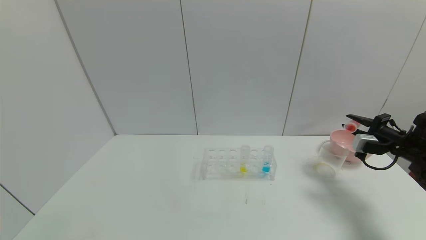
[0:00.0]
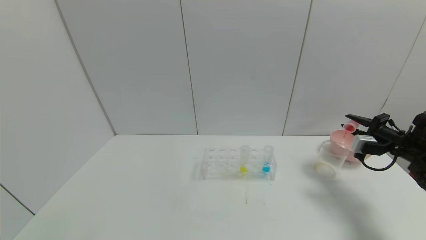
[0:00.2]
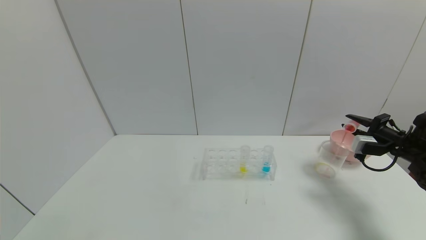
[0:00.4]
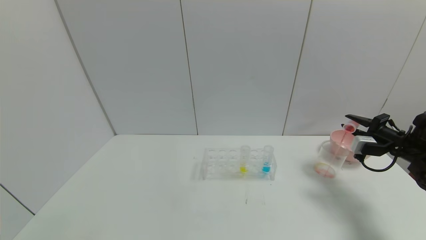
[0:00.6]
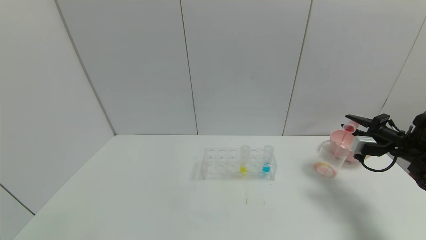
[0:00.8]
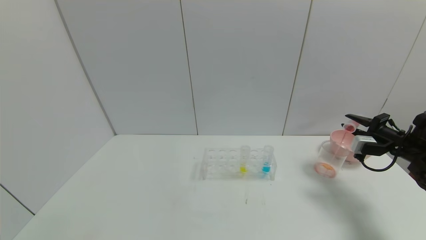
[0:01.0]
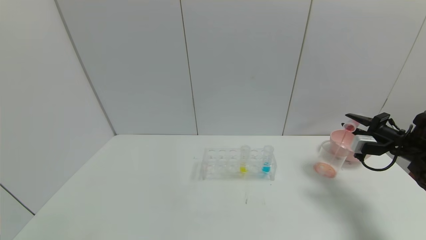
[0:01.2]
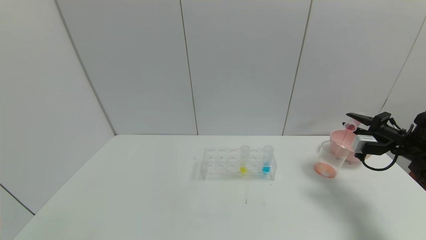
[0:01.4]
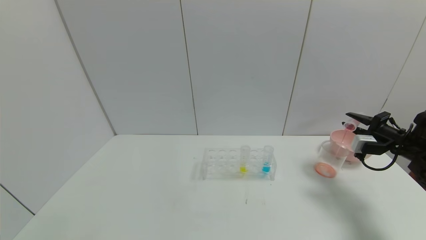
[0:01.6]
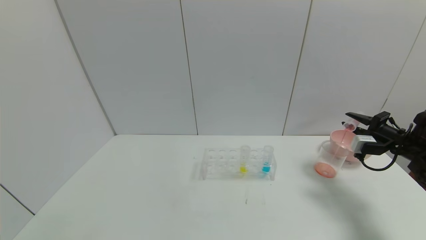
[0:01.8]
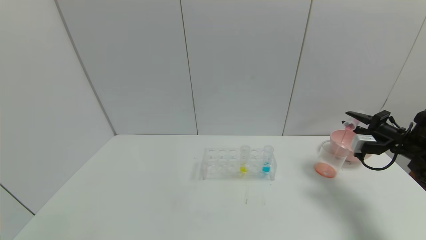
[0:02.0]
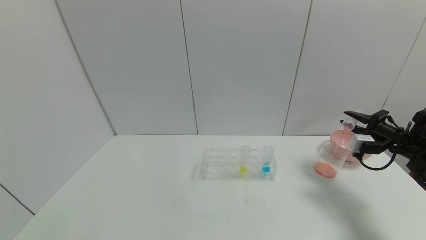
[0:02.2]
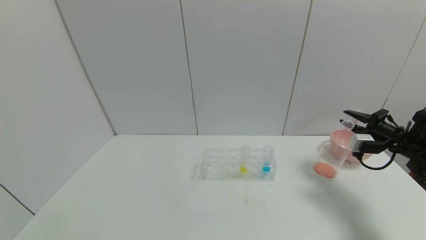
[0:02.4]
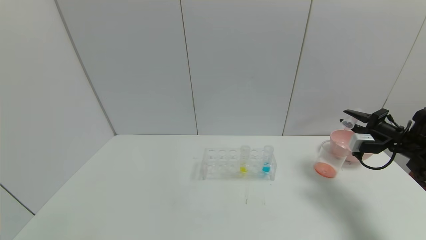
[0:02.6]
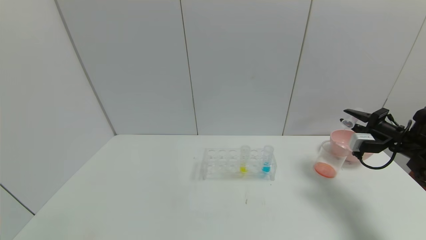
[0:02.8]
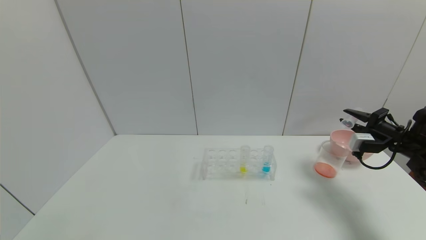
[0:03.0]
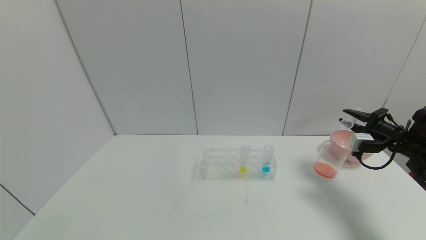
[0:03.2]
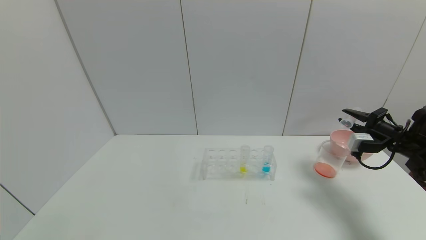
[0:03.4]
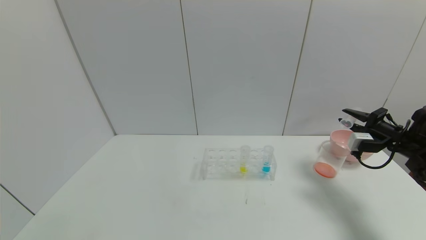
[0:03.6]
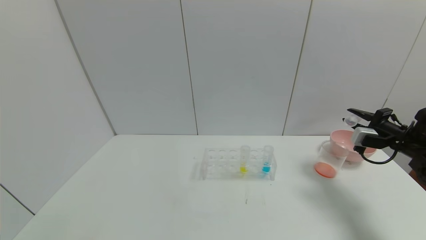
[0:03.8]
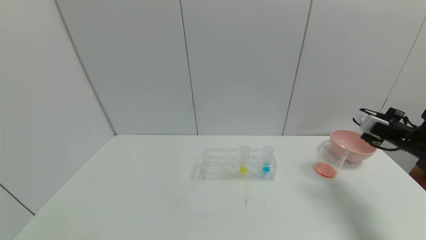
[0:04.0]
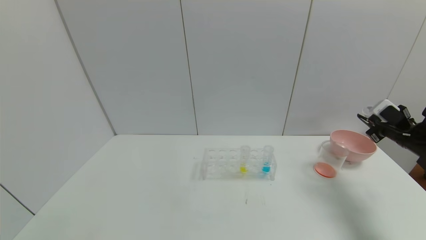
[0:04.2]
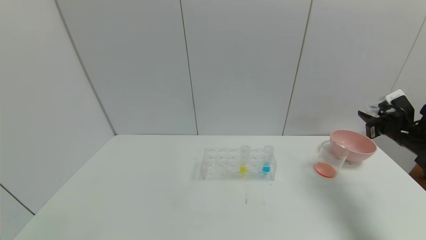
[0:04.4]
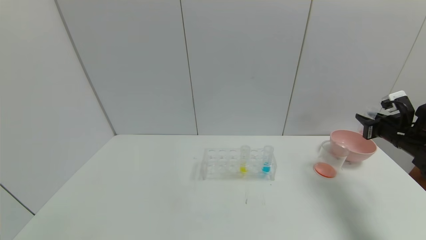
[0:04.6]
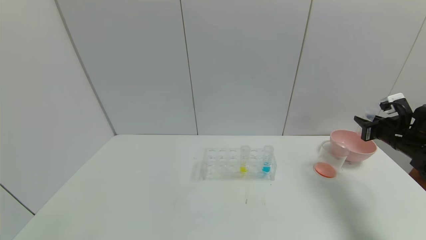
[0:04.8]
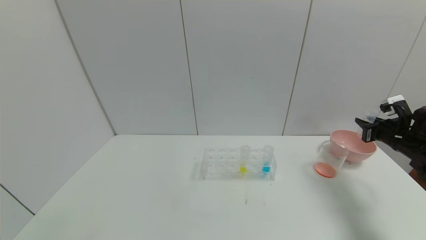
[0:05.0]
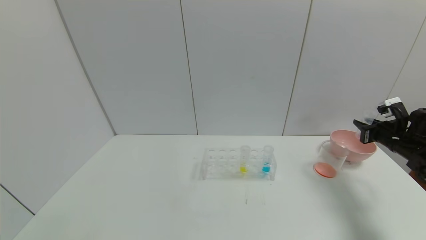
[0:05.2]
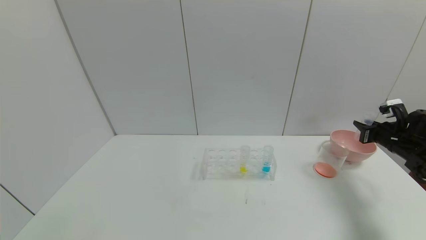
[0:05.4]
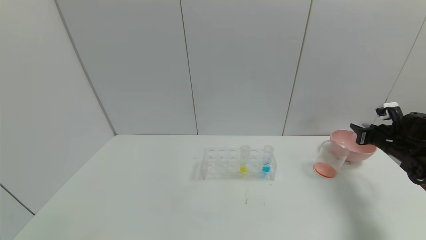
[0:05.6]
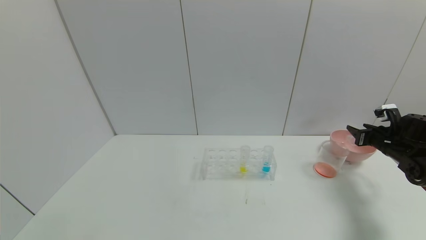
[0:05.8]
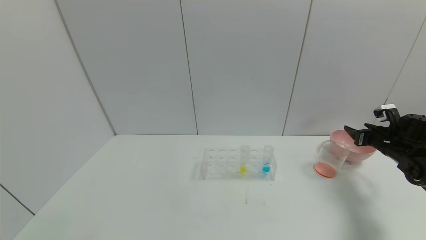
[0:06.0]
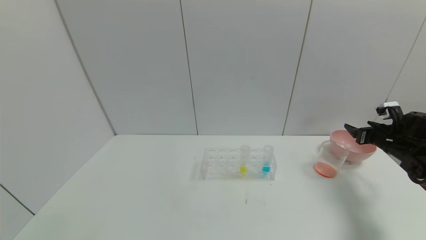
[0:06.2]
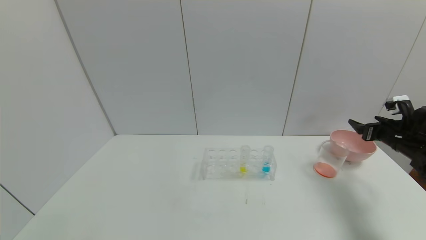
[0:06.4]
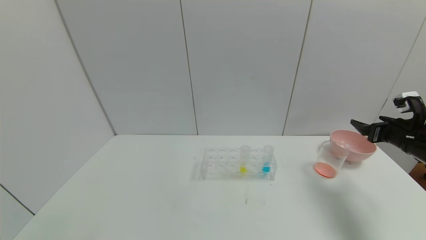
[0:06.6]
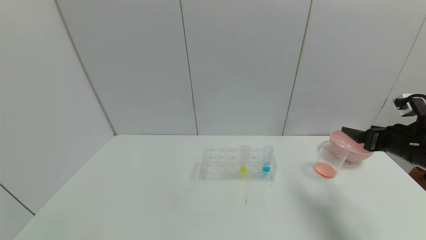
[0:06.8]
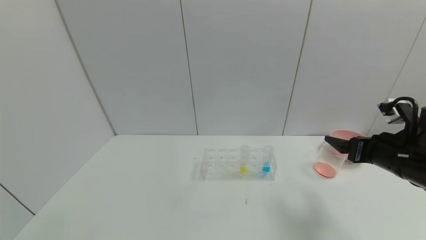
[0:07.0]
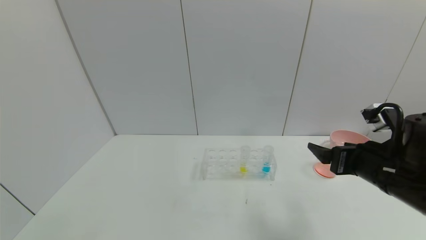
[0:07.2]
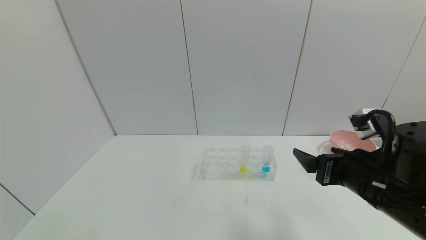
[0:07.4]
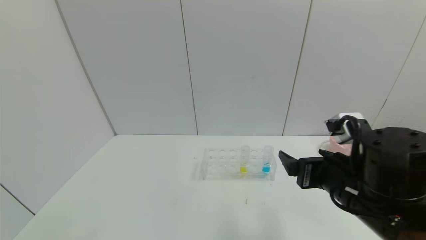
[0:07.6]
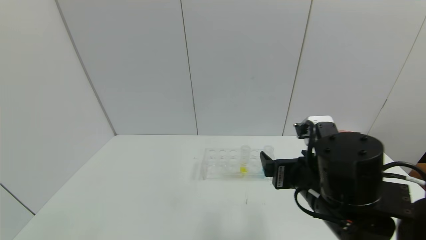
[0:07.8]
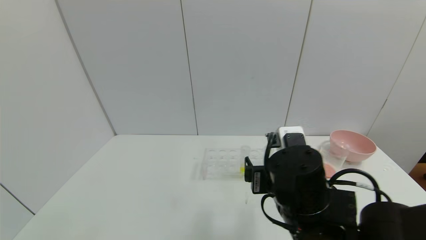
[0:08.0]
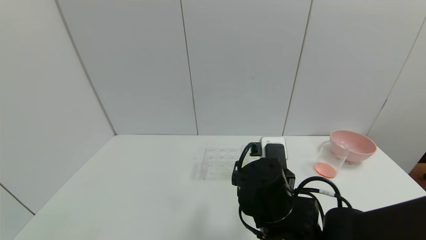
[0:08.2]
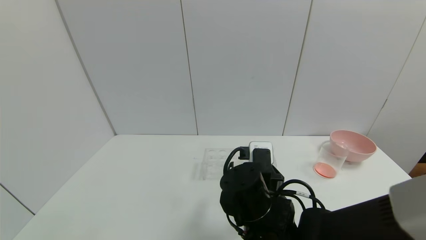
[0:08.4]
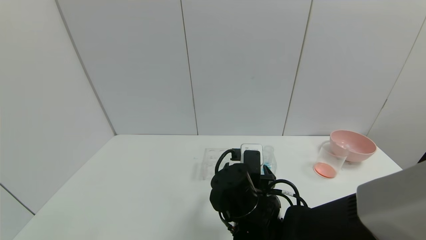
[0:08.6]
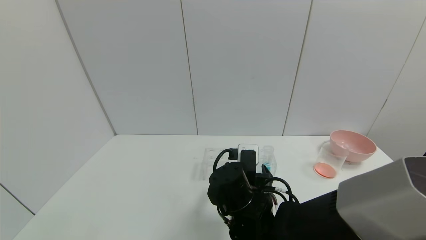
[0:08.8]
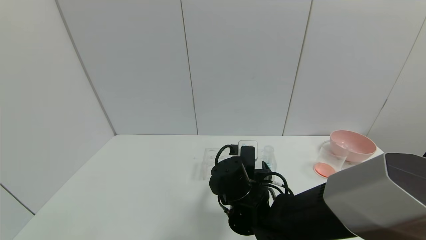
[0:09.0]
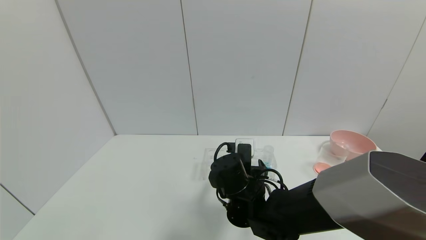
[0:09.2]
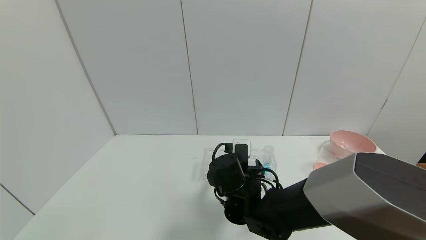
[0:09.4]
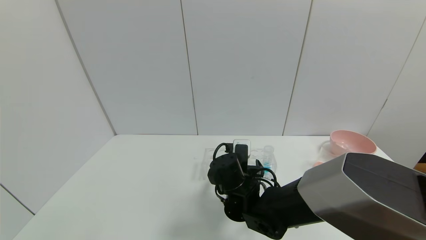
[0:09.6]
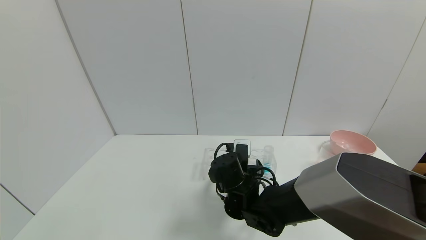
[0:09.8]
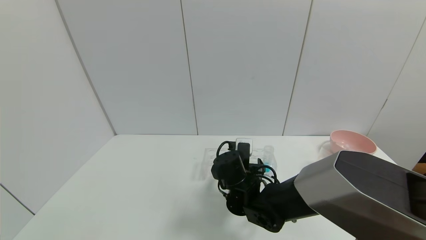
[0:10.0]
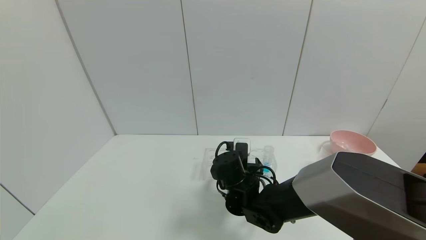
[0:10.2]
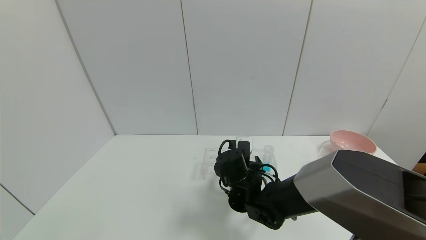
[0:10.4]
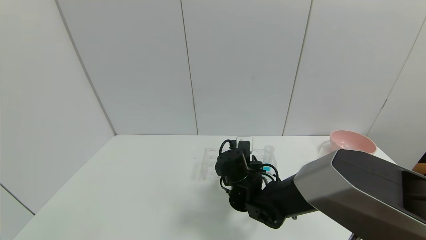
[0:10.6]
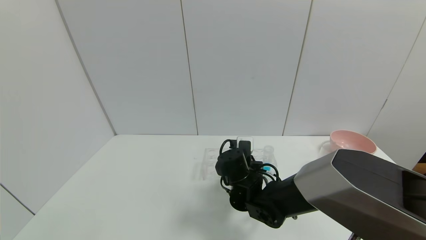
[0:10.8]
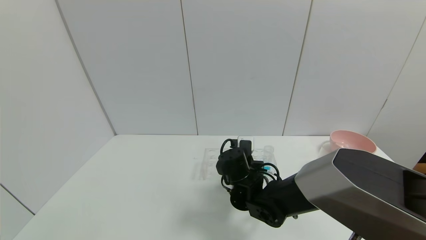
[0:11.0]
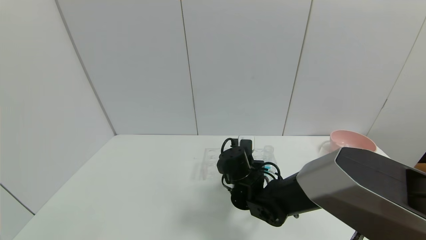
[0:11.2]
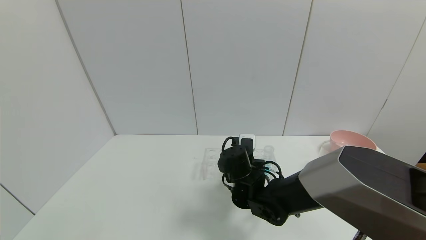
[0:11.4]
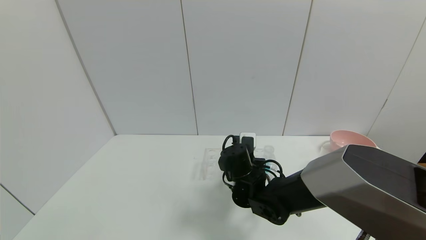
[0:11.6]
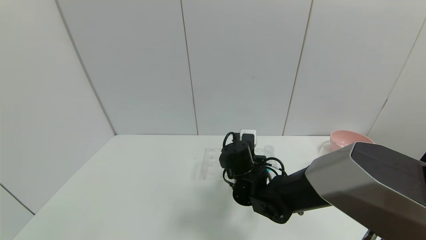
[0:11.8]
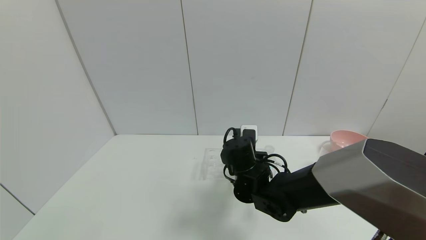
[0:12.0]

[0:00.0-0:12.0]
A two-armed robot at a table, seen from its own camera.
Task of the whole recording: pick up the test tube with yellow pigment and the test tube with red pigment by grippers and pour them into the beaker.
Step, 0:03.2 to 0:06.4: Place the test tube into the bowl with the right gripper.
Step, 0:06.6 to 0:11.0: Grasp the yellow reagent with the right gripper.
0:00.0 to 0:01.6: Both grippers stay about where they are.
0:01.6 to 0:03.0: The grippers stay close to where they were, moving slightly.
0:04.4 to 0:06.0: The right gripper goes roughly 5 cm downward, and opens.
0:06.0 to 0:07.6: The right gripper travels to the left and backward by about 35 cm, and opens.
0:07.6 to 0:09.0: The right gripper travels to the left, downward and forward by approximately 20 cm.
0:09.0 to 0:10.4: The right gripper moves forward, roughly 5 cm.
0:10.4 to 0:12.0: The right gripper closes its fingers.

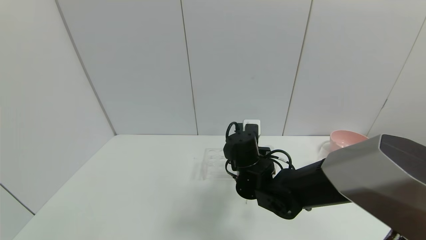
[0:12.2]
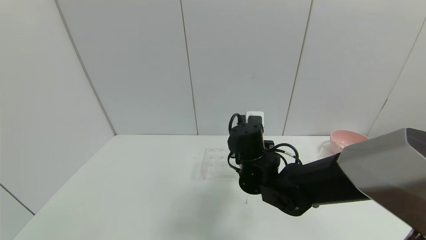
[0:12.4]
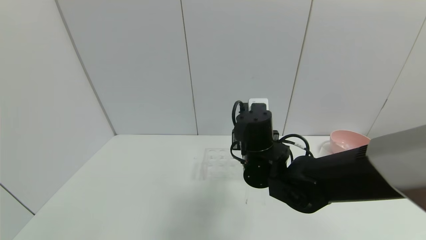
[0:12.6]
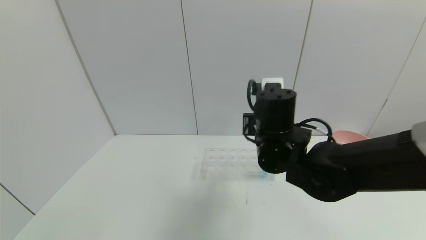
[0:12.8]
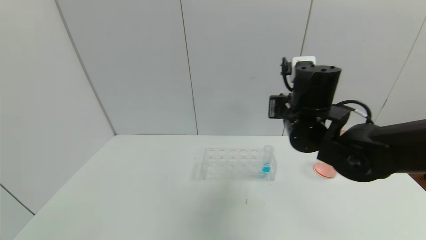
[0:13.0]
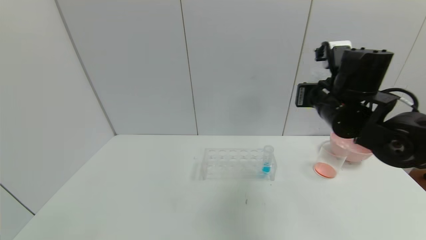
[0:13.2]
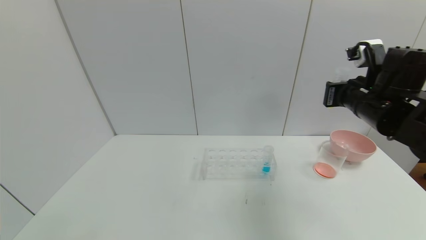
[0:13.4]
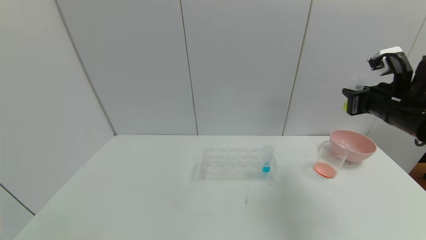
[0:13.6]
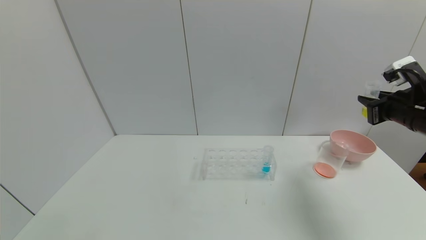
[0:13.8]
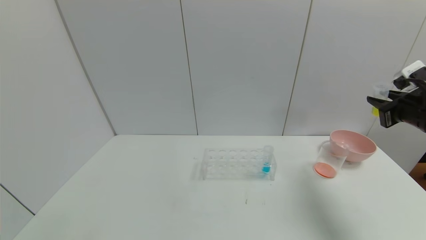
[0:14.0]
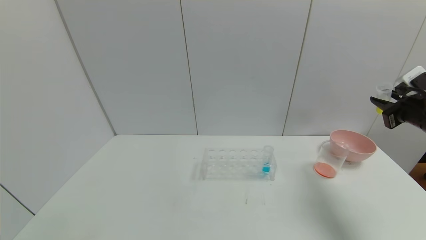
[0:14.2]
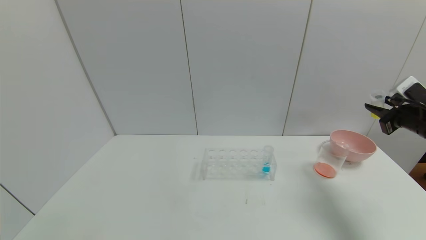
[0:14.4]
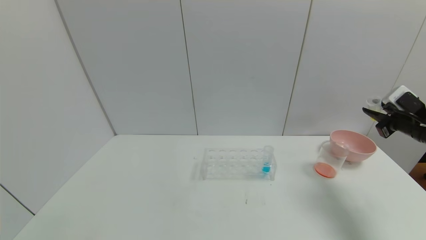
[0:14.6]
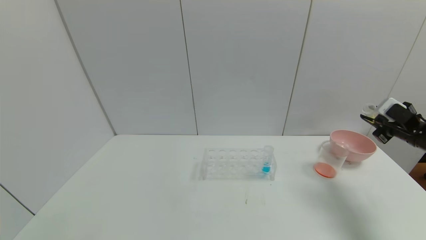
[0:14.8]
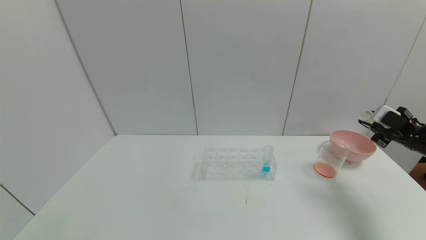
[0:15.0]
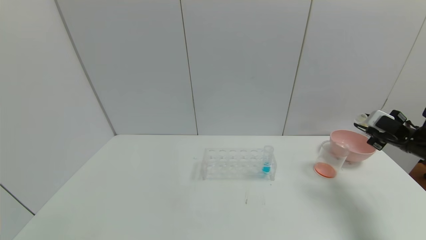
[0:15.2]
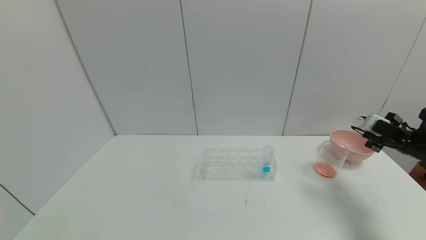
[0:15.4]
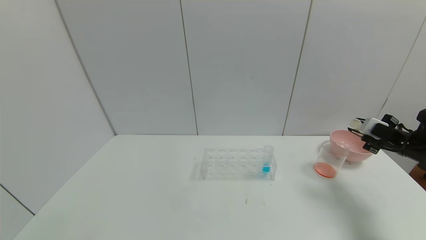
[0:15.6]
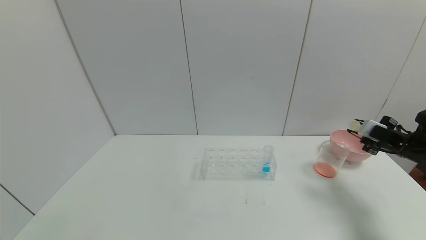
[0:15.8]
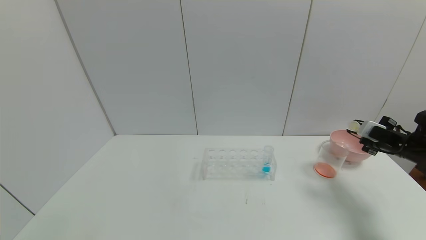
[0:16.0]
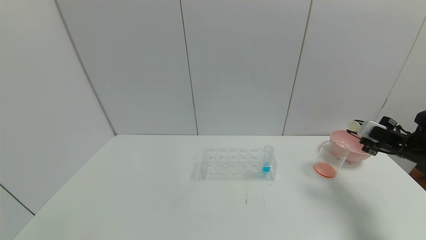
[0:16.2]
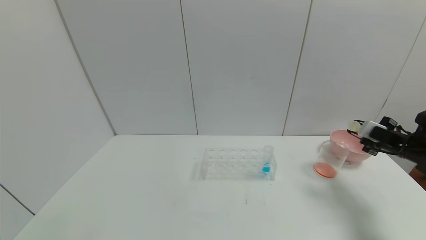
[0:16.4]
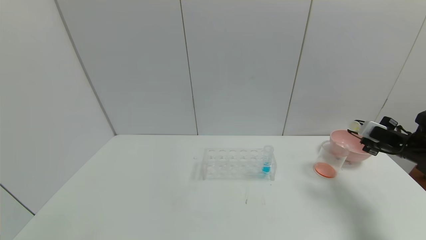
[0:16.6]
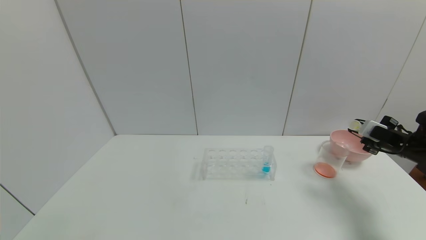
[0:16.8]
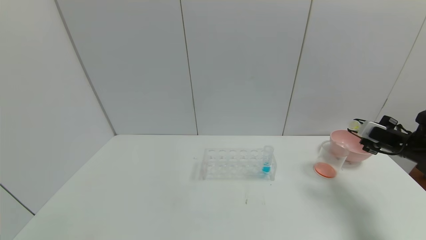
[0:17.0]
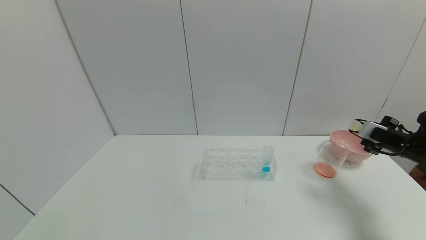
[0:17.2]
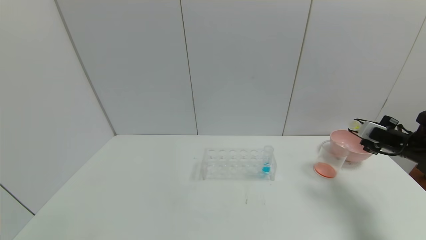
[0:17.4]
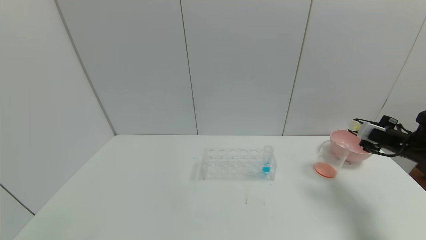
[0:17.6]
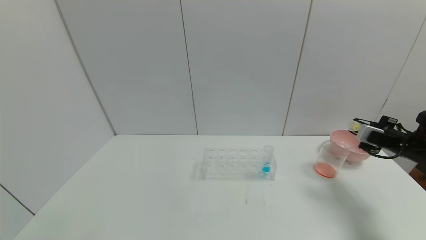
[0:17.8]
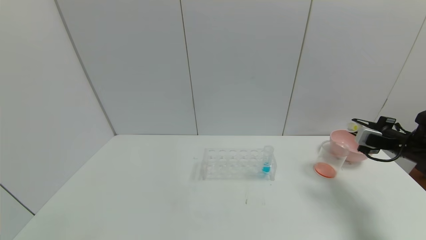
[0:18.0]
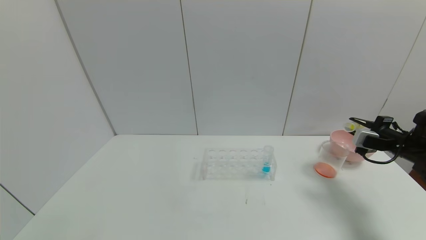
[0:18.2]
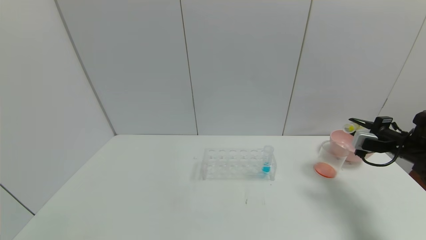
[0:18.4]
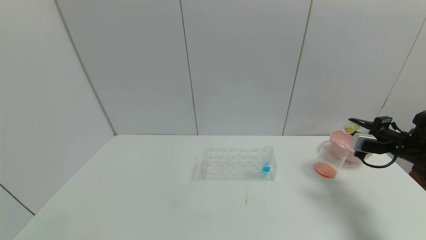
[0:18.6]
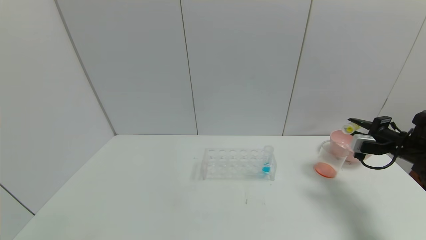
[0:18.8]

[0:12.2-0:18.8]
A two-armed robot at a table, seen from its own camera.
Task of the whole recording: pick up the test tube with yellow pigment and the test tube with red pigment by grippers and pour them into the beaker.
0:12.2 to 0:13.8: The right gripper shifts roughly 35 cm to the right and upward.
0:13.8 to 0:15.4: The right gripper moves downward and to the right, roughly 15 cm.
0:15.4 to 0:17.2: The grippers move only a little.
